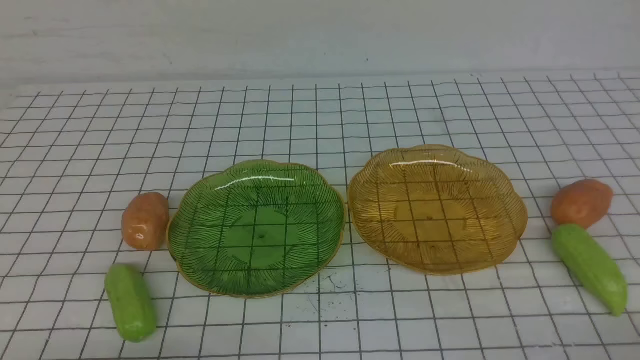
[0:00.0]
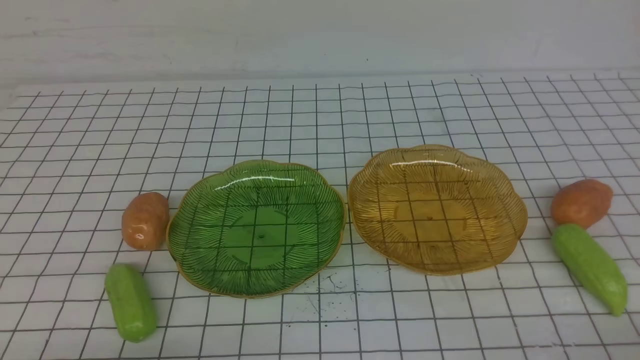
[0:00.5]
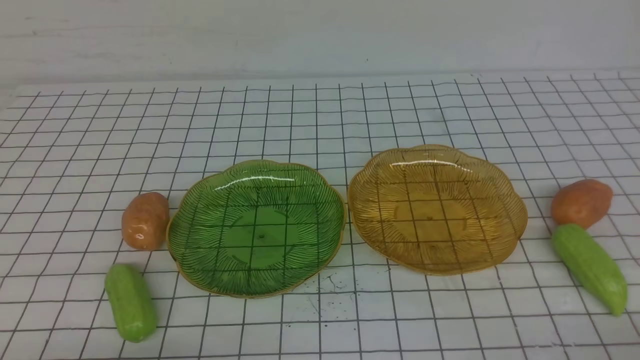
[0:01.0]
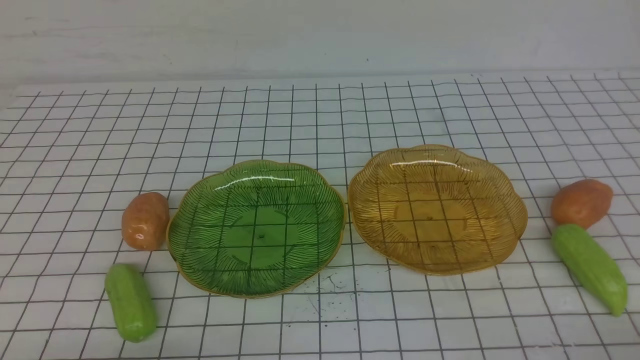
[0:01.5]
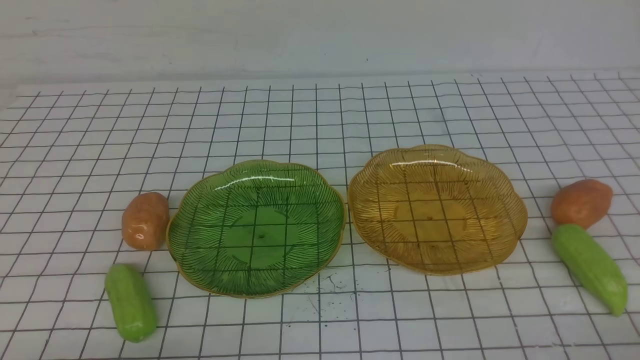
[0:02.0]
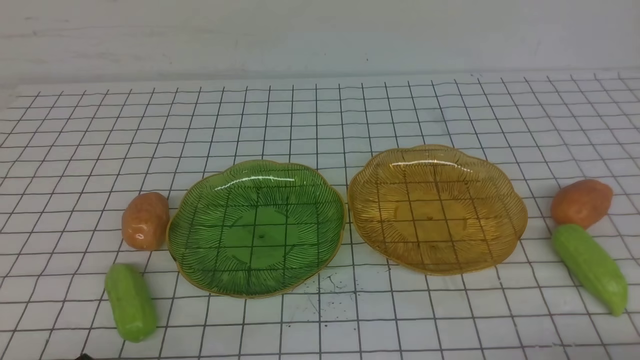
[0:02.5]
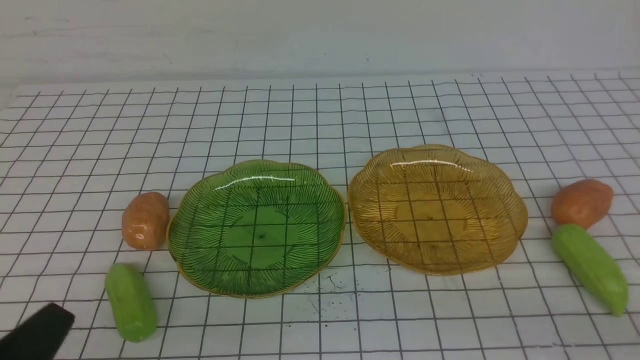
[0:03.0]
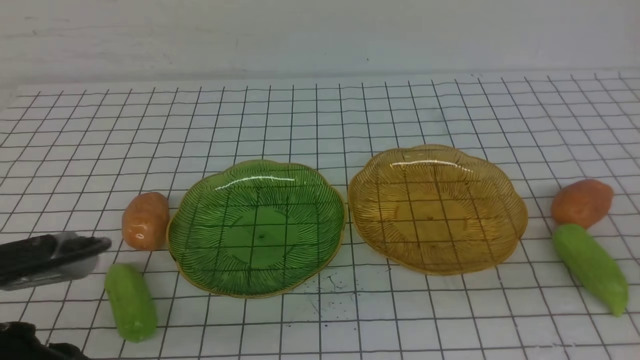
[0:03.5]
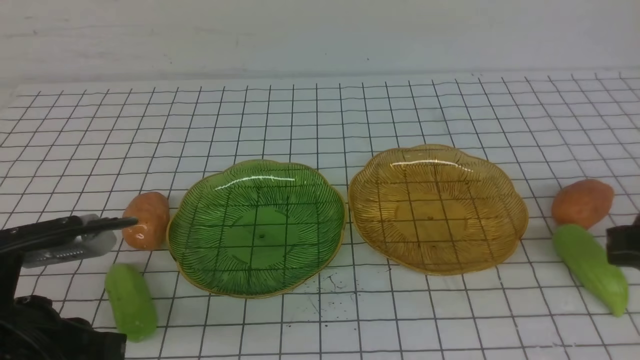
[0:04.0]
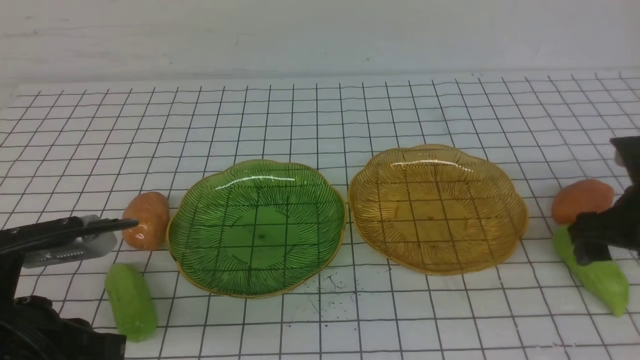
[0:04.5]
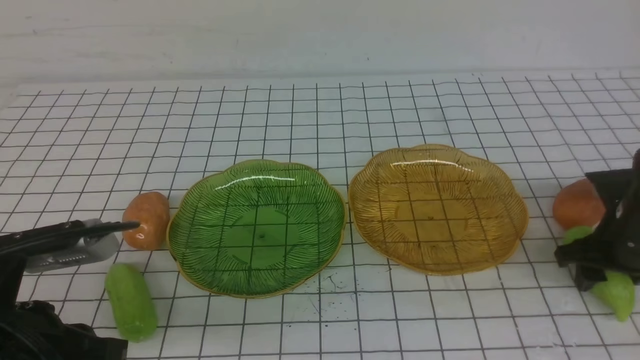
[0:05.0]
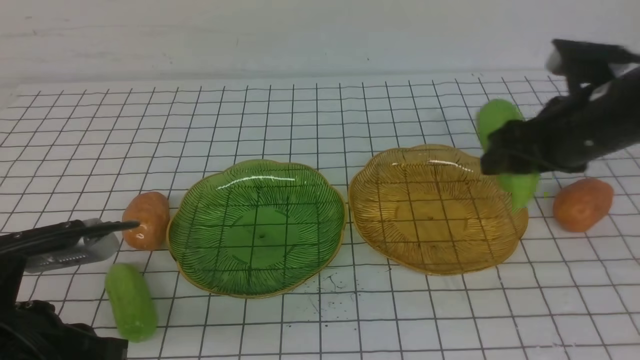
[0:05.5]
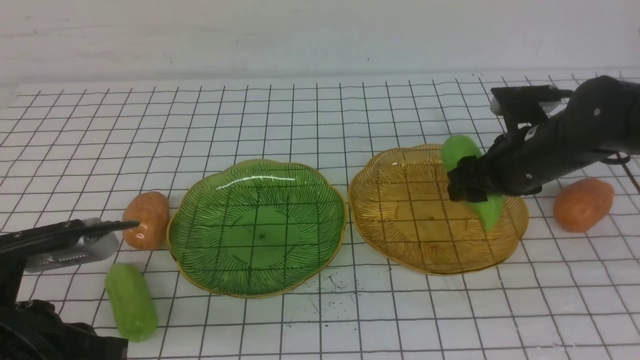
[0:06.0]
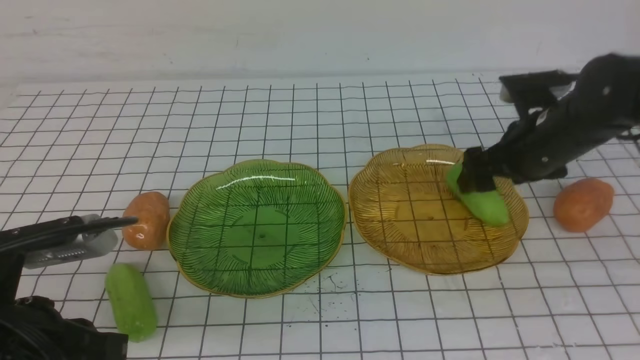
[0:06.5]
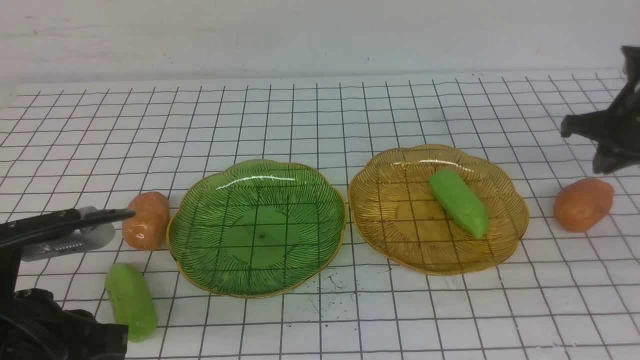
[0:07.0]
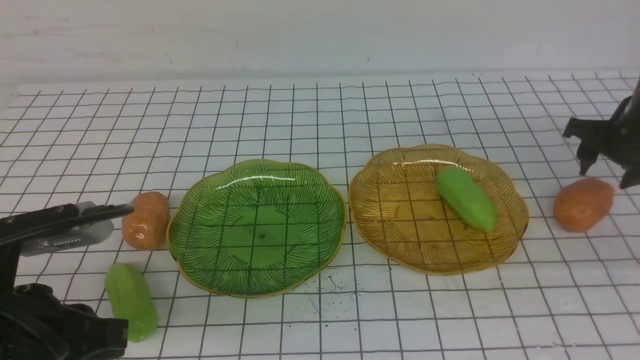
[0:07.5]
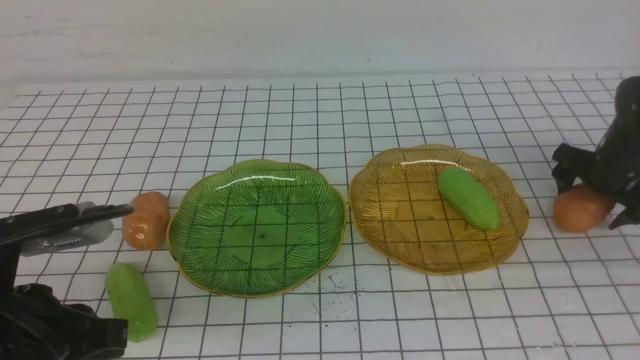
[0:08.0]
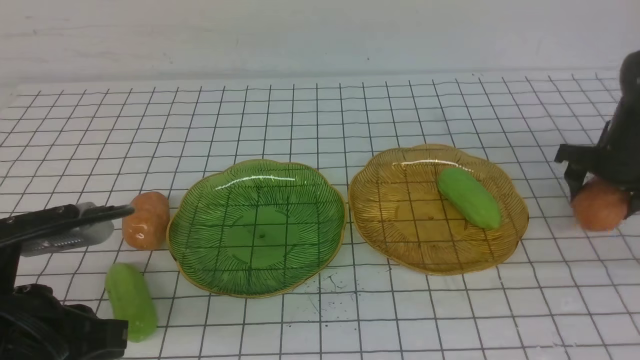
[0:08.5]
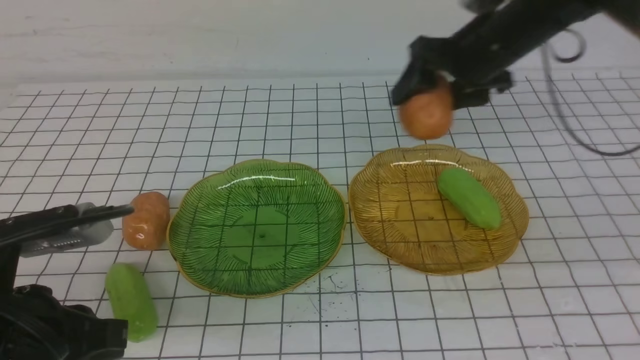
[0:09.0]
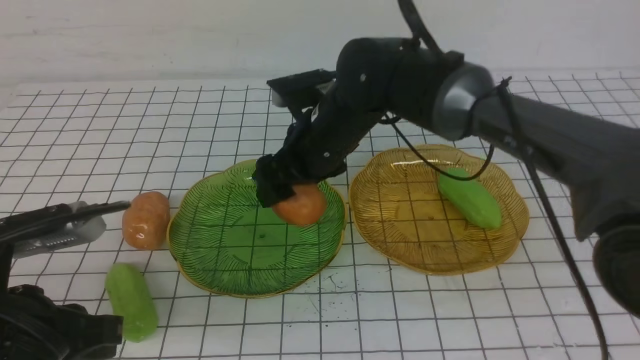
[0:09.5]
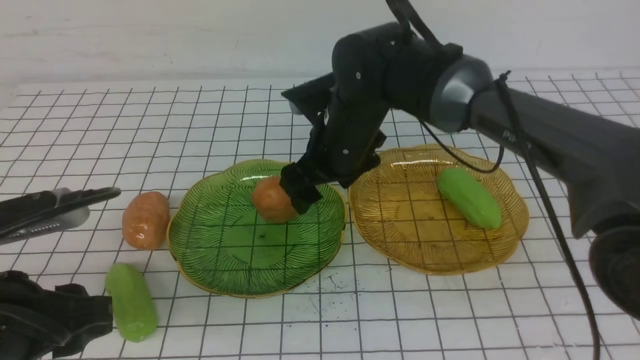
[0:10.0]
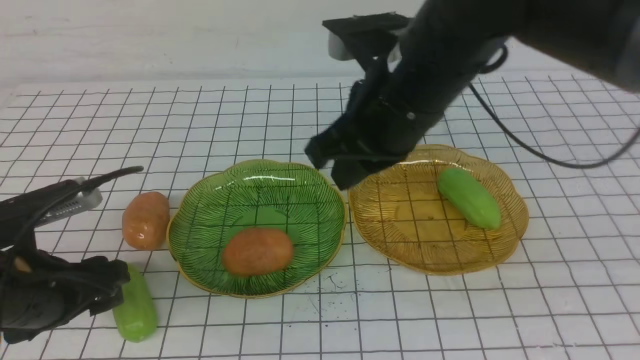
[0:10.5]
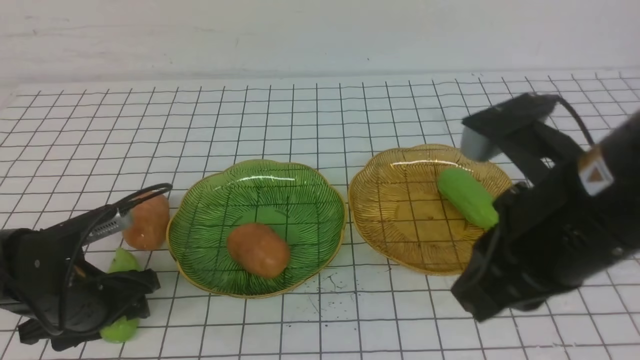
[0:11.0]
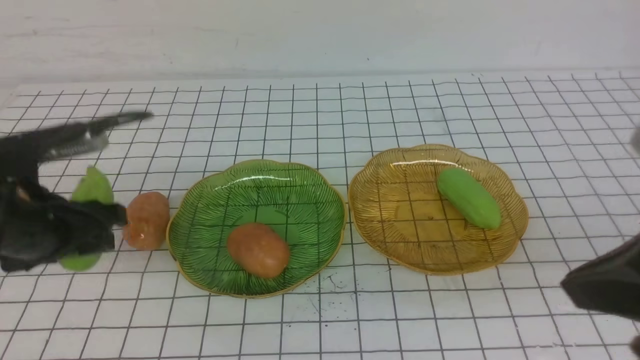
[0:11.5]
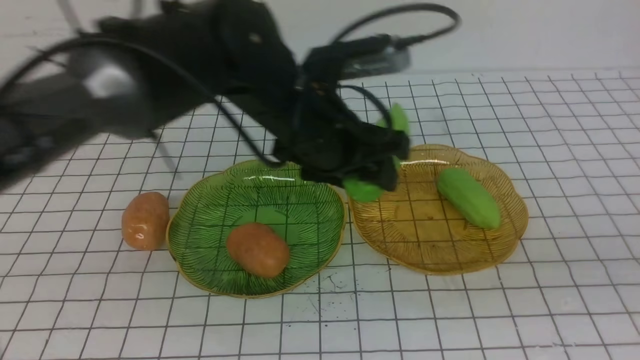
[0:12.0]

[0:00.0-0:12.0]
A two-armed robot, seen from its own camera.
Step, 0:00.0 to 0:06.0: use the right arm to grab a chayote and put it into the right plate.
Step, 0:06.5 to 0:09.5: Grab a potato with your right arm and put it on the left plate.
0:02.0 to 0:04.0: The right gripper heads forward and upward, covering roughly 15 cm; the left gripper shifts some 10 cm upward and forward.
0:04.0 to 0:06.0: The right gripper shifts about 20 cm forward and to the left, and opens its fingers.
0:06.0 to 0:08.0: The right gripper shifts about 15 cm to the right and forward.
0:08.0 to 0:10.0: The left gripper opens; the right gripper is displaced to the left by some 35 cm.
0:10.0 to 0:12.0: The right gripper travels backward, to the right and upward by roughly 40 cm, and closes its fingers, while the left gripper goes approximately 20 cm forward and to the right.

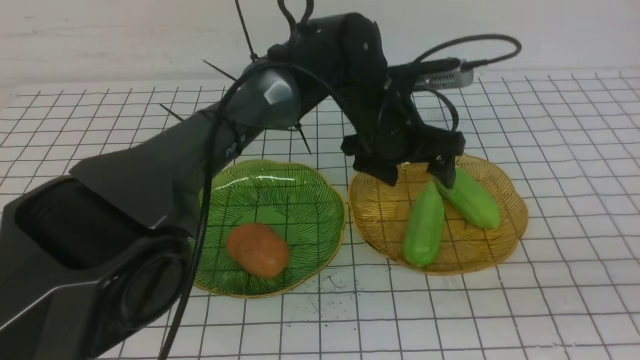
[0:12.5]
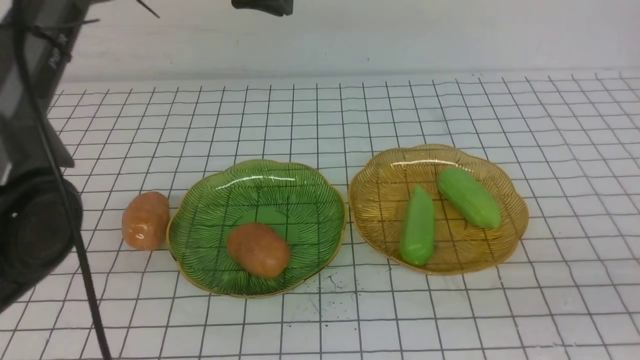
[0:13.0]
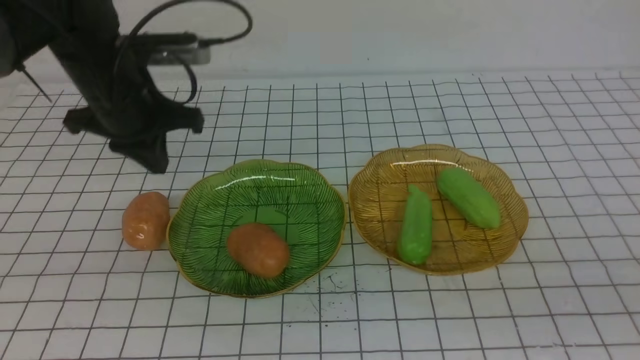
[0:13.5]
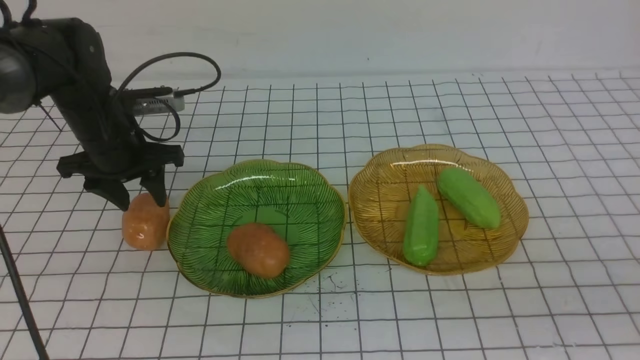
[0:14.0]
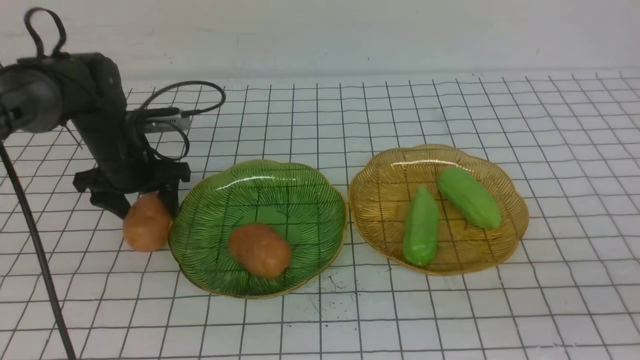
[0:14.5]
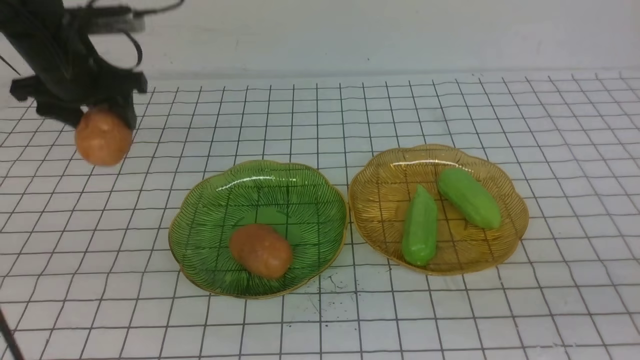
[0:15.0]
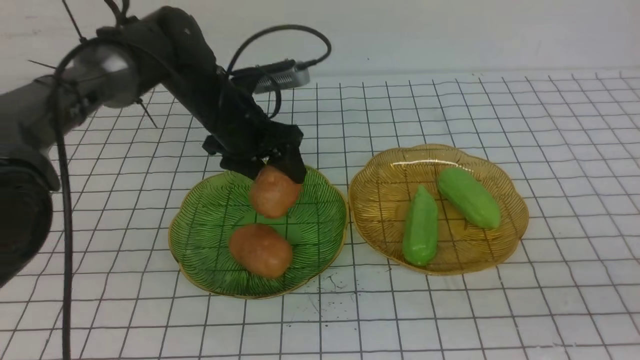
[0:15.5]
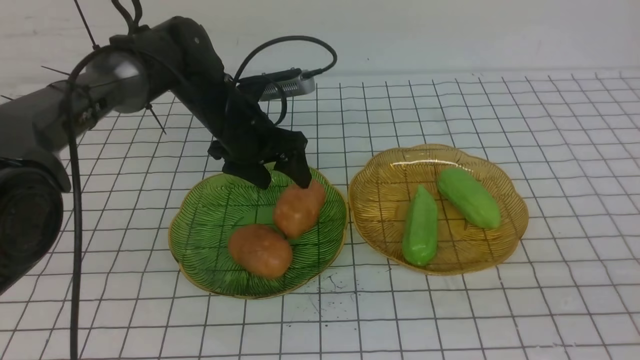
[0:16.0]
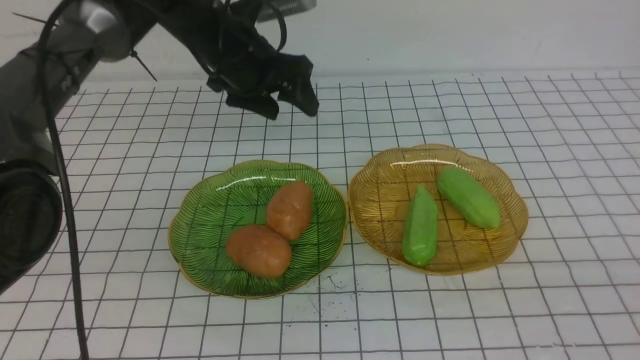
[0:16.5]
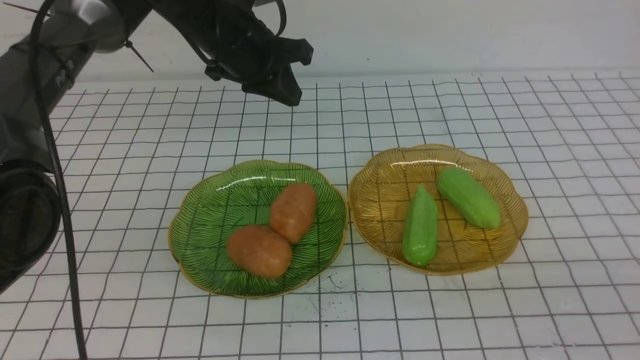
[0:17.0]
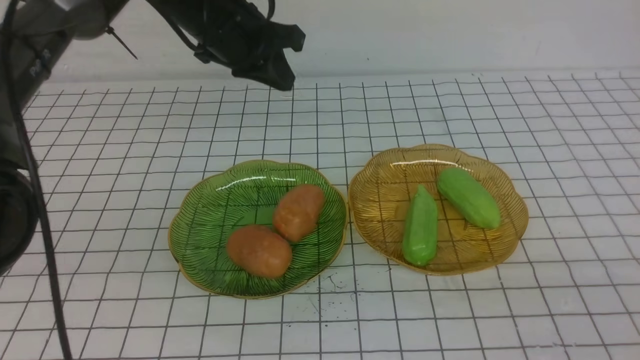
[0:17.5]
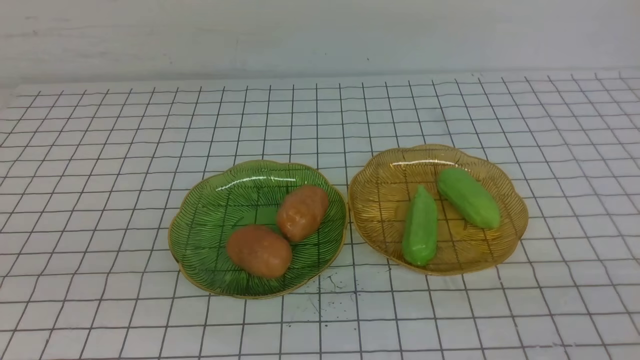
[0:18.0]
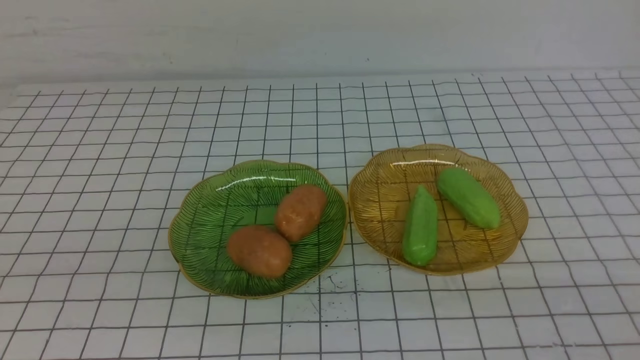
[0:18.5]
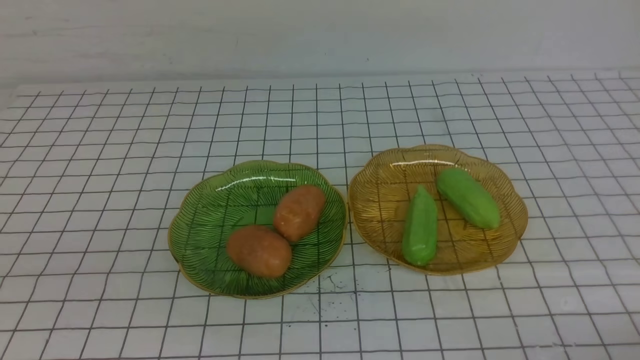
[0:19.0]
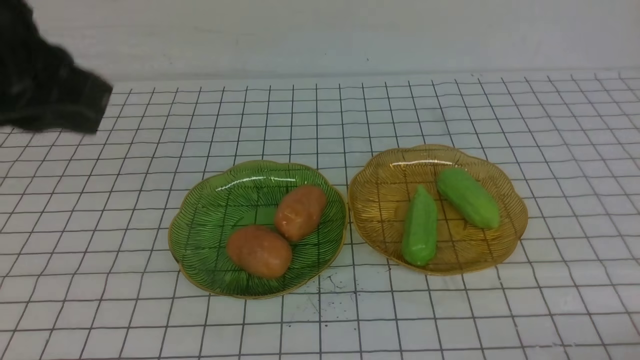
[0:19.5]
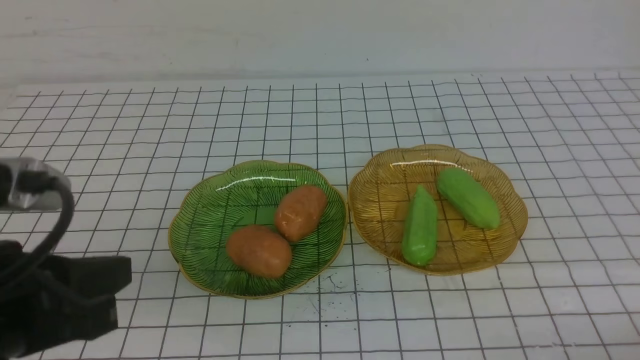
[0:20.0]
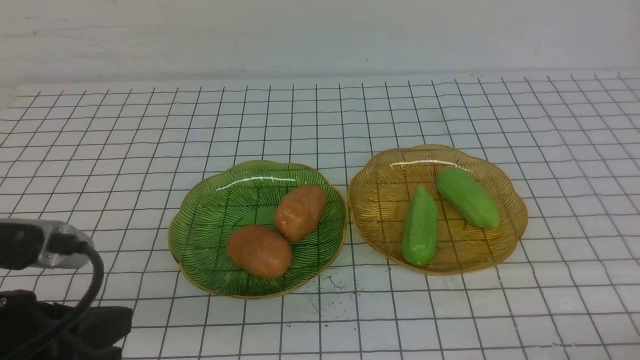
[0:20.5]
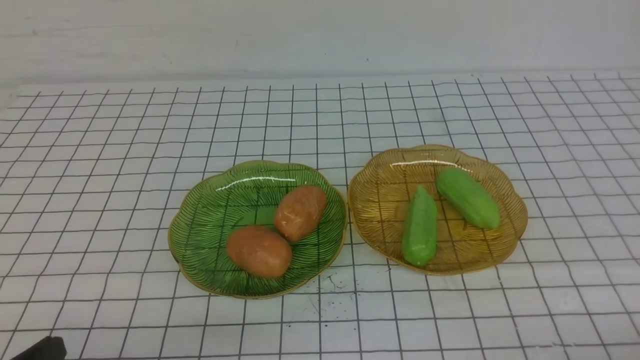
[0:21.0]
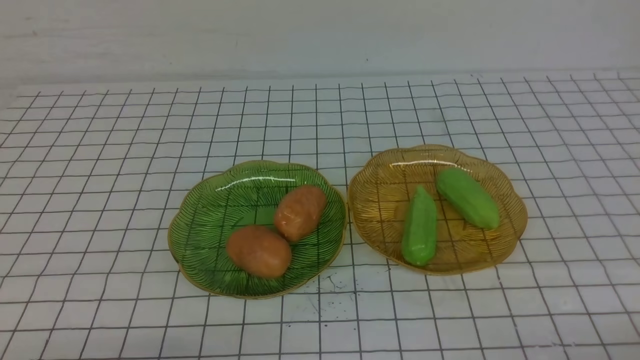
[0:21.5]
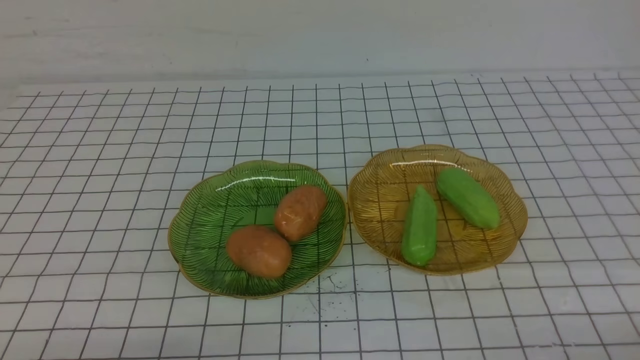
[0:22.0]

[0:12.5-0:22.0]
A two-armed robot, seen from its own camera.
Step, 0:12.5 to 0:16.0: Grab a potato with your left arm and put it on the left plate.
0:12.5 to 0:14.5: The left gripper travels to the left by about 30 cm, and closes and opens again.
0:14.5 to 0:16.5: The left gripper goes about 15 cm to the right and upward. The right gripper travels backward and to the right by about 15 cm.
0:16.5 to 0:18.0: The left gripper heads upward and backward, covering approximately 20 cm, and closes. Meanwhile the right gripper is displaced downward and to the left by roughly 10 cm.
0:18.0 to 0:20.0: The left gripper moves backward and downward, about 25 cm.
0:20.0 to 0:22.0: The left gripper is displaced downward and backward by approximately 20 cm.
